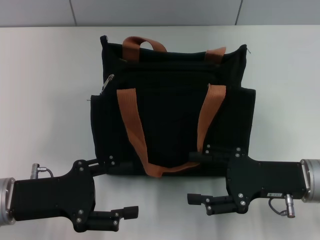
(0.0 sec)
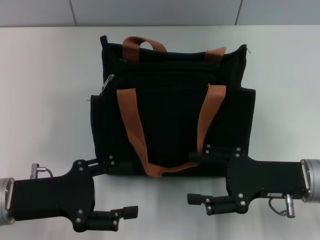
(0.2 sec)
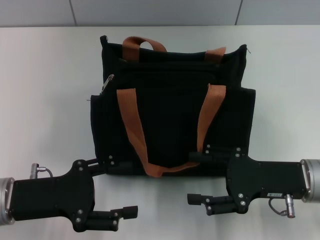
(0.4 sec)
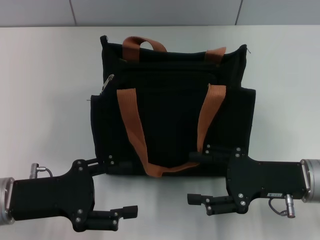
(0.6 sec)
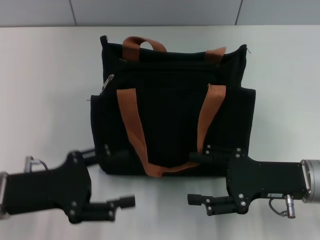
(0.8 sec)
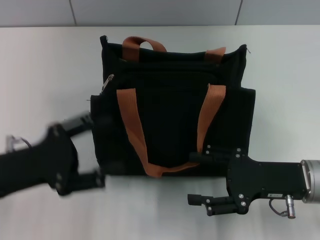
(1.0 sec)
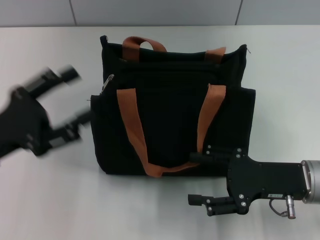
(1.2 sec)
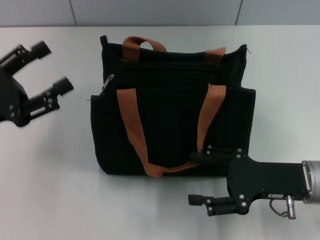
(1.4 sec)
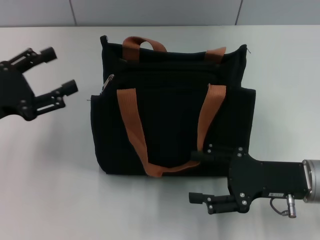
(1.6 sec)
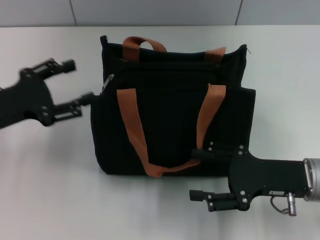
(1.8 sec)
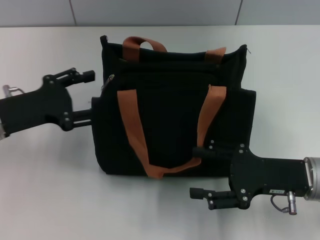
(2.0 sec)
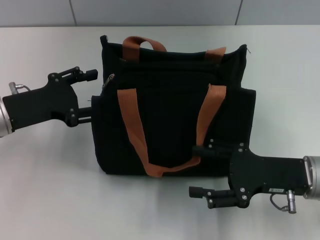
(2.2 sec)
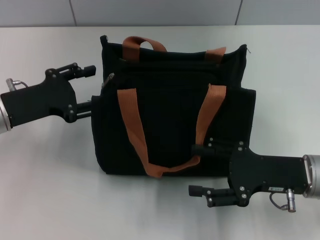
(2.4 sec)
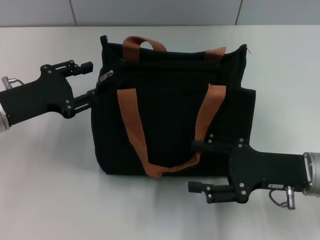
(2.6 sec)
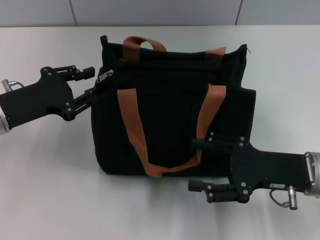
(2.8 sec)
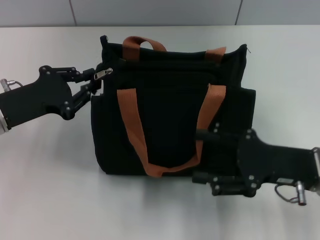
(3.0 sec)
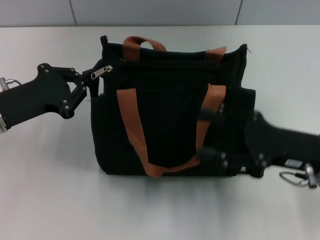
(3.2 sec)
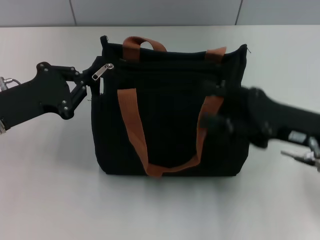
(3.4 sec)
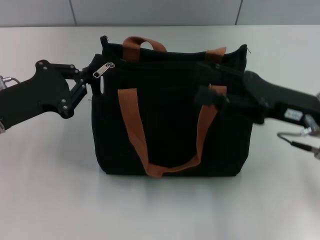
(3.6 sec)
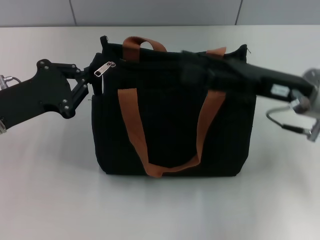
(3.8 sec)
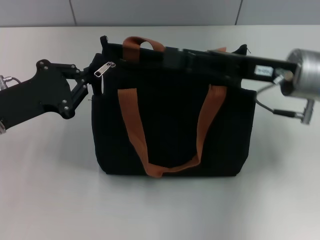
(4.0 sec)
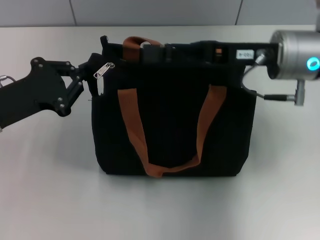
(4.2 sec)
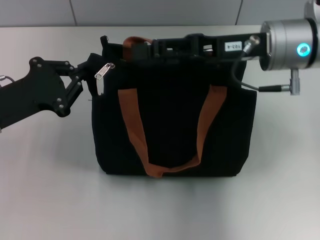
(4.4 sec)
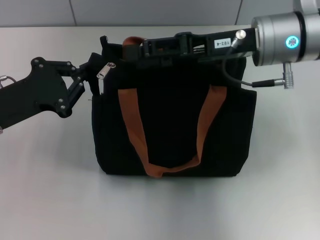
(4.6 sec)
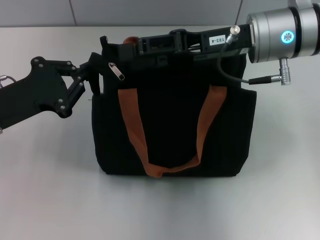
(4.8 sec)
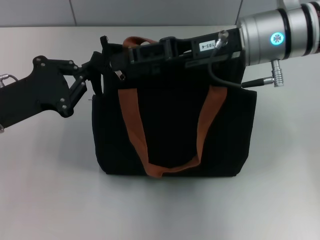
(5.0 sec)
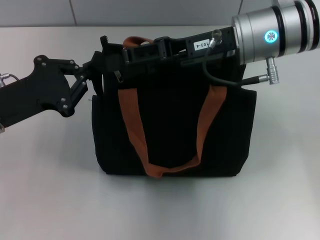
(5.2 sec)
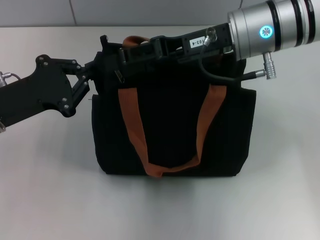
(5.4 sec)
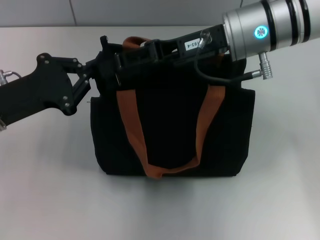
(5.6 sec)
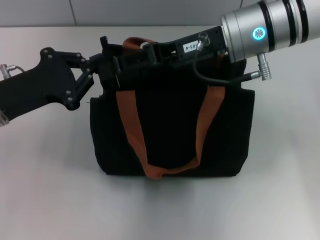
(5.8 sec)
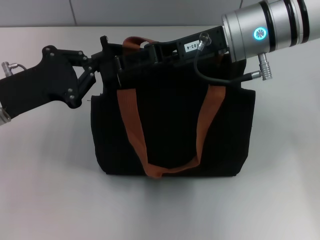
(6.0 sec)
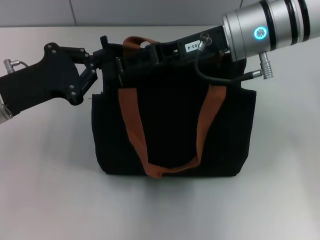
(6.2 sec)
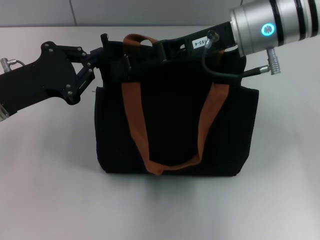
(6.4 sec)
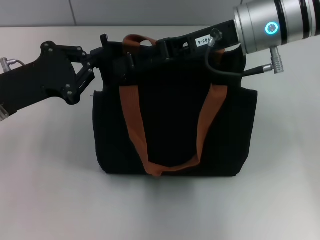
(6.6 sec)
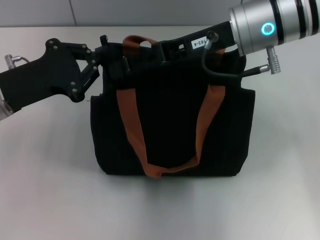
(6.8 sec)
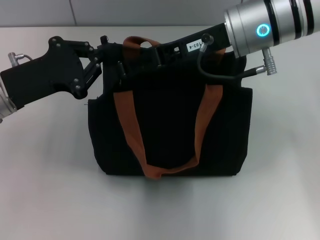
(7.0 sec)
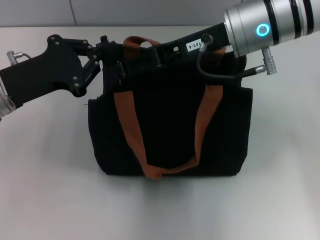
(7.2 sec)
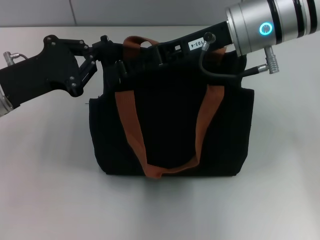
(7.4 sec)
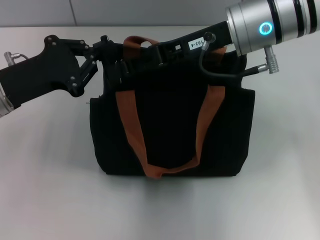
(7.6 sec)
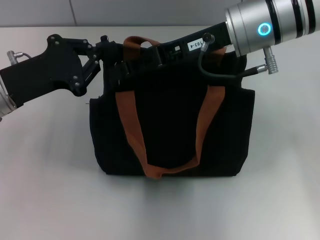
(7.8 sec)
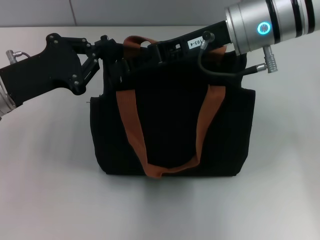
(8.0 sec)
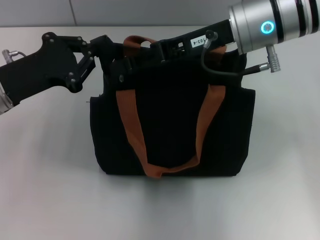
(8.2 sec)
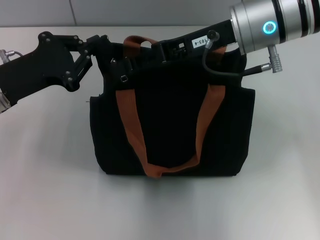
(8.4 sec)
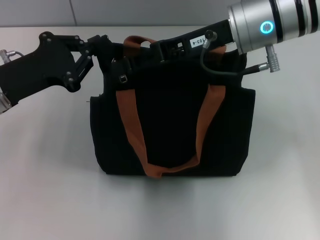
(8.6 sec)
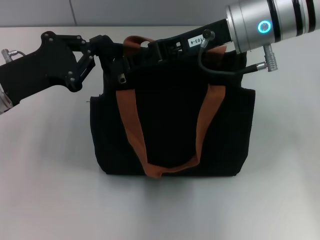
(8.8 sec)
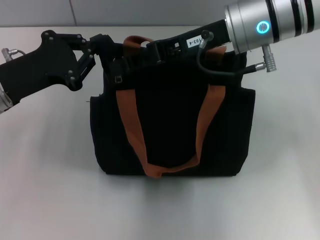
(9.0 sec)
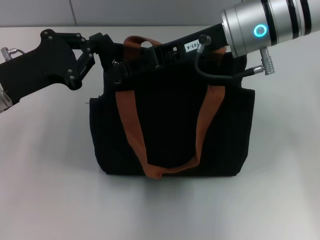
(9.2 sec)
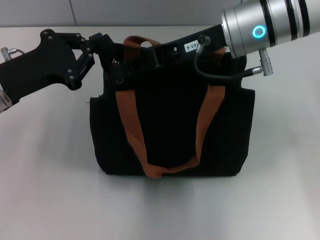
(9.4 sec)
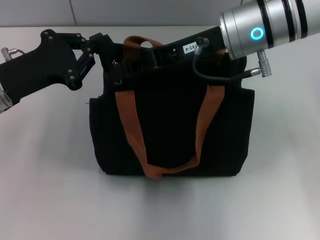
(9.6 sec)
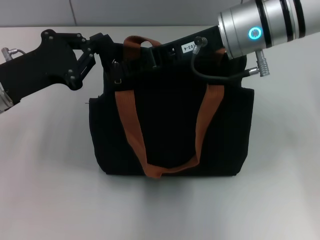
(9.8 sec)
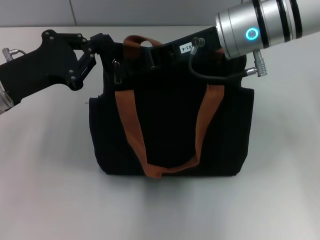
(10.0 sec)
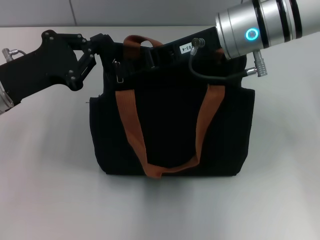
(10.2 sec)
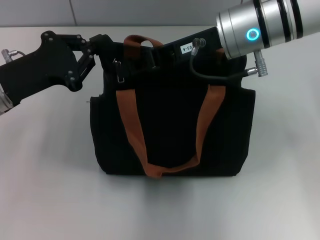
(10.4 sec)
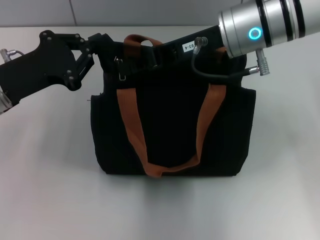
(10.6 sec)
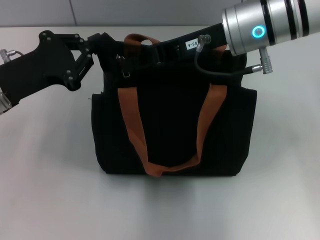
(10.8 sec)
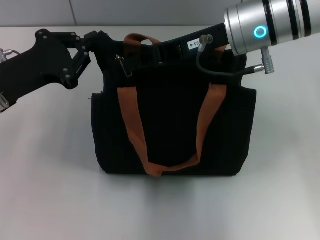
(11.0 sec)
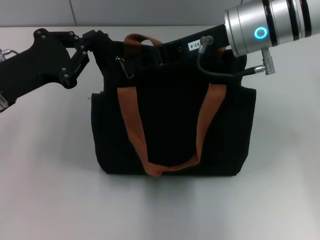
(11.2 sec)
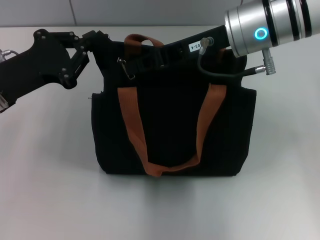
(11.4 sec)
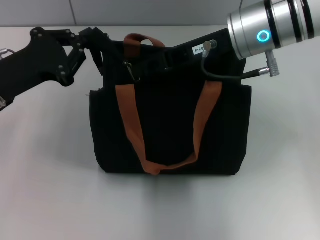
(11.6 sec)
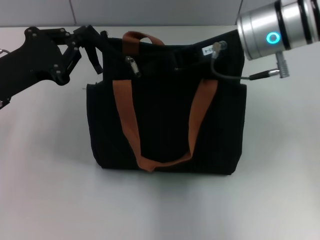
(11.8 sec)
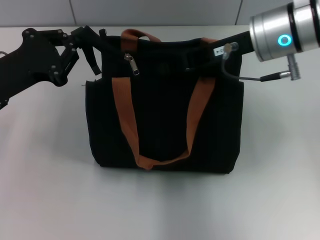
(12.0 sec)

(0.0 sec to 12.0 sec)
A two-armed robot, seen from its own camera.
0.0 sec - 1.6 sec: The left gripper travels to the left and forward by some 10 cm.
1.6 sec - 3.0 sec: The left gripper changes place by about 5 cm, and closes.
3.0 sec - 4.4 sec: The left gripper closes its fingers. Meanwhile the right gripper moves forward, upward and to the left, some 20 cm.
4.4 sec - 7.6 sec: The grippers make only small movements.
7.6 sec - 9.0 sec: The right gripper closes.
9.0 sec - 10.4 sec: The right gripper closes its fingers.

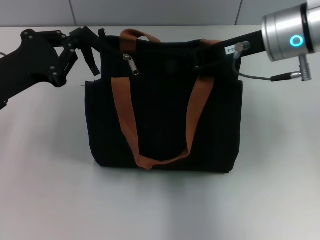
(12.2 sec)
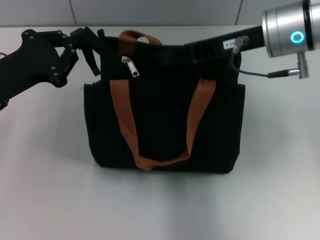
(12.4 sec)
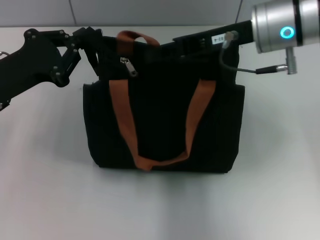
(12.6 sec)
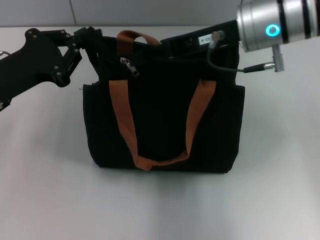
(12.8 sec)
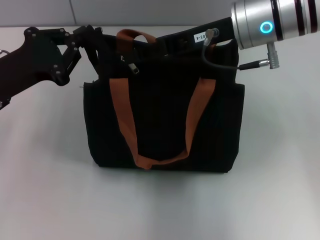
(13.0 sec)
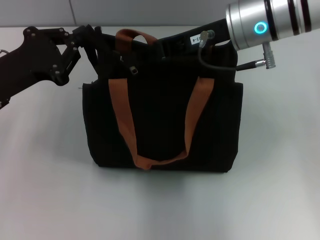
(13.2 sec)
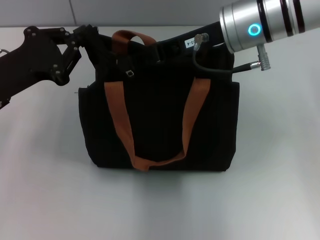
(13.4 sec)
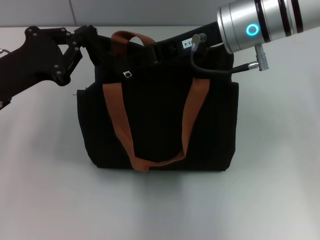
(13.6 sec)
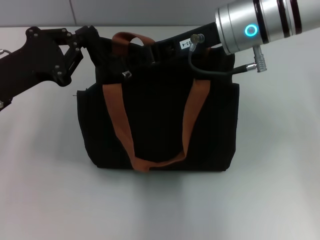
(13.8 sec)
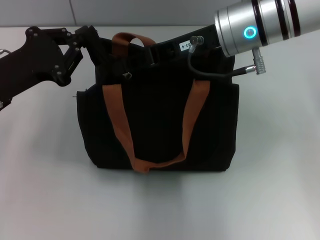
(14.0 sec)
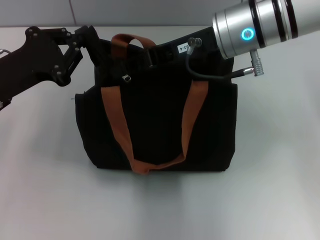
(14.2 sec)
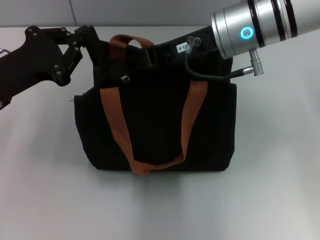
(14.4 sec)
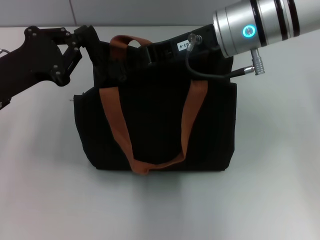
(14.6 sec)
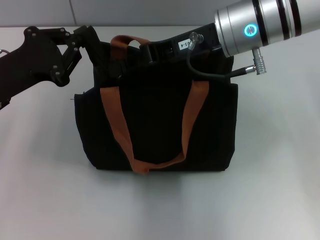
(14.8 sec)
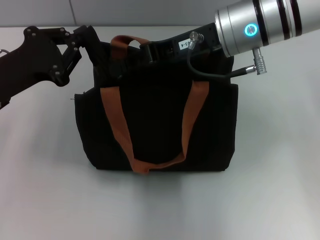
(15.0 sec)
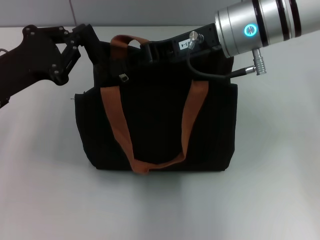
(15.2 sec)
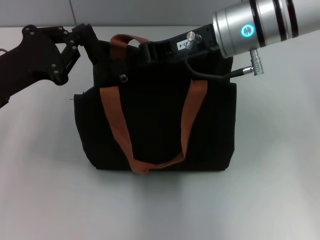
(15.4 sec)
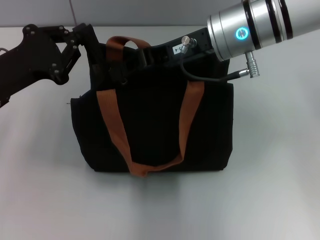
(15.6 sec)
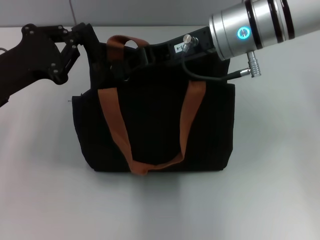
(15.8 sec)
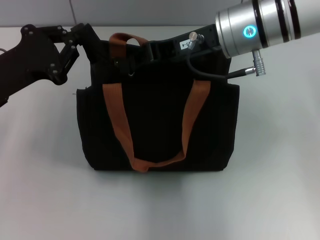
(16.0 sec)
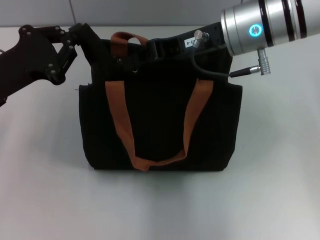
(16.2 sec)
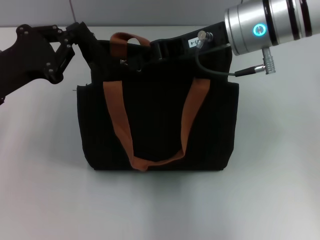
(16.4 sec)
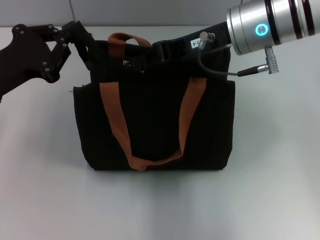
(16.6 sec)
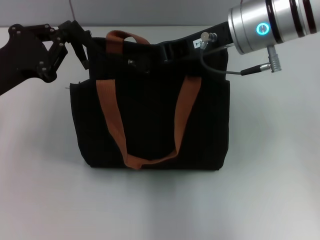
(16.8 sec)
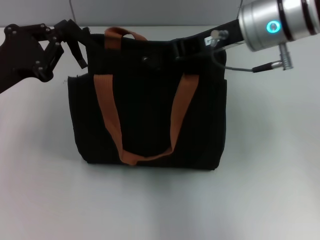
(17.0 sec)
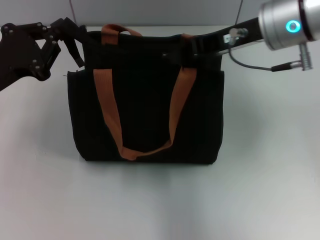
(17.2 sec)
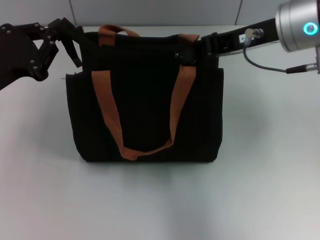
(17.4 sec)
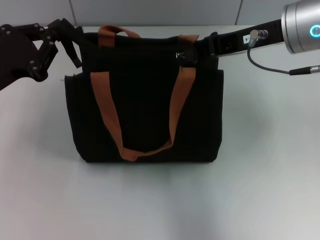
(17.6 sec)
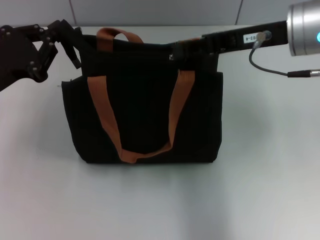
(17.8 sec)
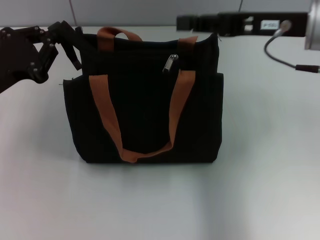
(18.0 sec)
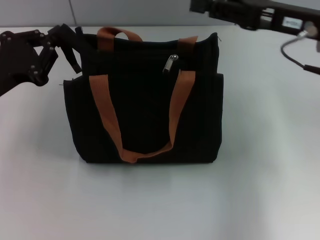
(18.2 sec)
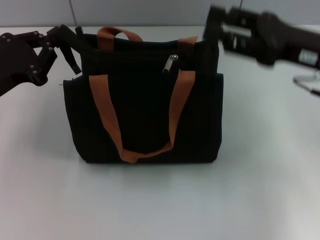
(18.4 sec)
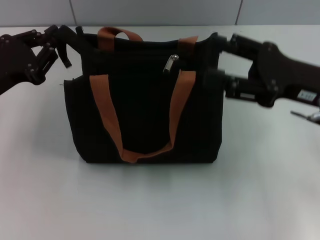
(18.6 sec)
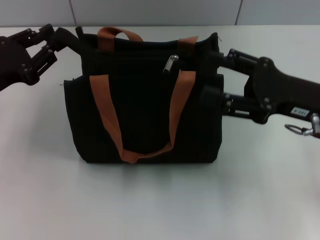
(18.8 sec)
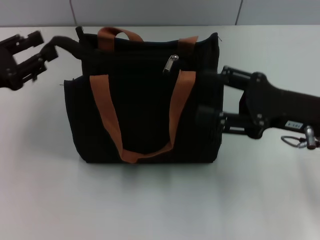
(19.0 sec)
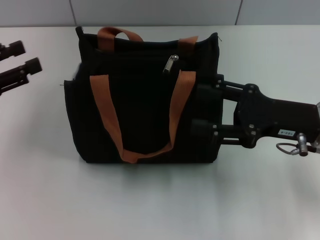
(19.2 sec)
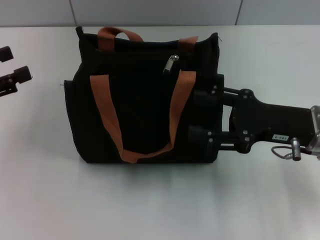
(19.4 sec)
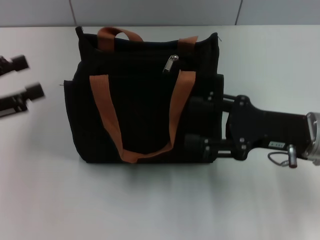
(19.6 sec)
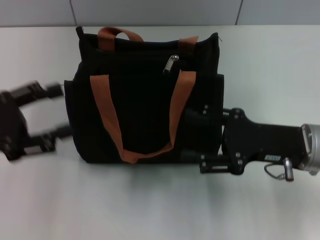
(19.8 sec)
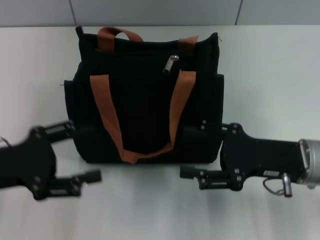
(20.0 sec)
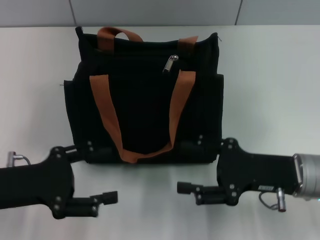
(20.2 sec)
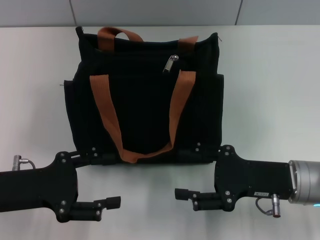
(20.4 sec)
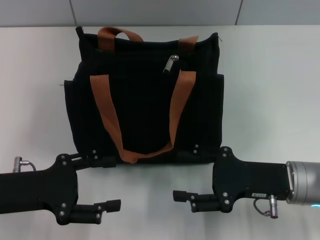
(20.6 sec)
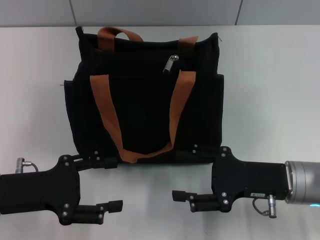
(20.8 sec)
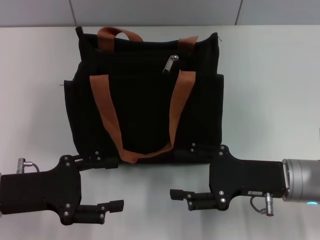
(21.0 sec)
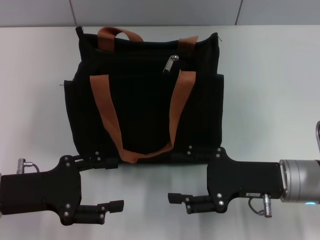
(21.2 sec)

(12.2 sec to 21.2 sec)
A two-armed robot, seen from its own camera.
Step, 12.2 sec - 17.6 sec: Pull up the zipper with your right hand.
Step, 18.0 sec - 19.2 sec: Grab the zipper with your left hand.
12.2 sec - 13.8 sec: The right gripper goes roughly 5 cm to the left, and opens its fingers.
13.8 sec - 16.6 sec: The grippers make only small movements.
16.6 sec - 18.2 sec: The right gripper shifts about 10 cm to the right.
18.2 sec - 19.8 sec: The right gripper is displaced downward and backward by roughly 15 cm, and opens up, while the left gripper is displaced backward by about 5 cm, and opens.
19.8 sec - 21.2 sec: The left gripper moves downward and to the right, roughly 10 cm.
